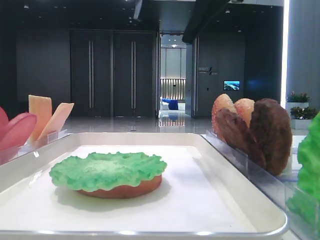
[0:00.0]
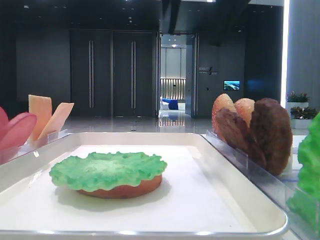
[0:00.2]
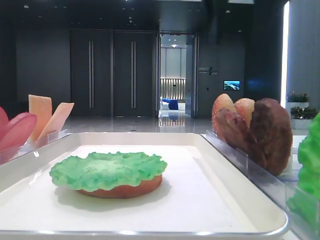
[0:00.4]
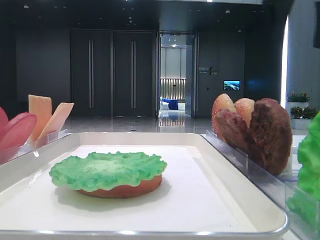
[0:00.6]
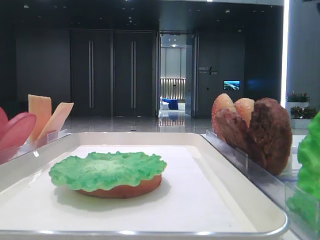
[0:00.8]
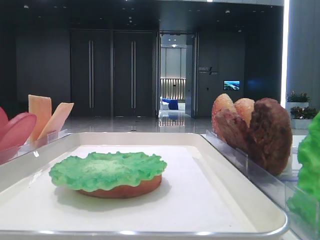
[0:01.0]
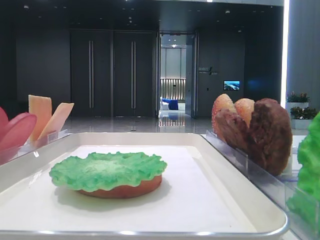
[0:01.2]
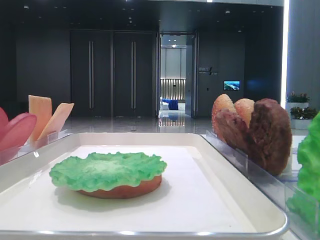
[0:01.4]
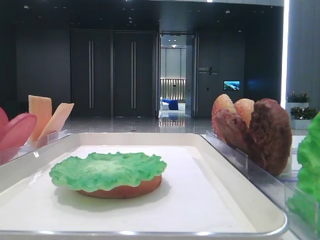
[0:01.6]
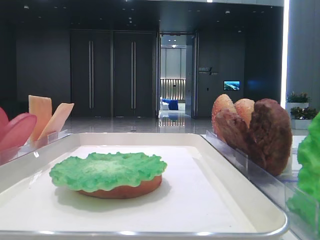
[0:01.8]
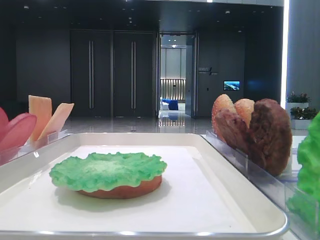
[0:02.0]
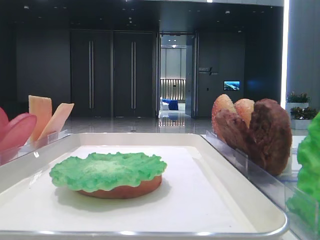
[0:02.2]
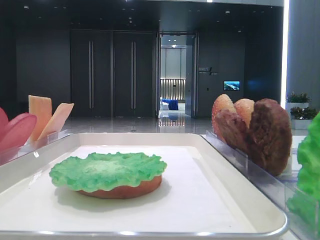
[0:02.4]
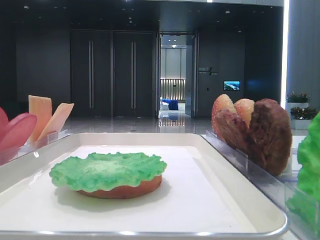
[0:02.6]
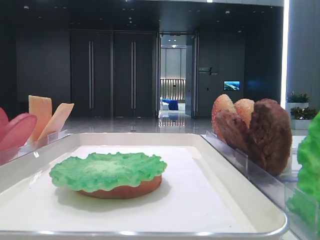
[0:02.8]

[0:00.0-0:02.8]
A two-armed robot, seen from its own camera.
0:00.0 to 0:01.4: The right gripper moves to the right and backward, roughly 30 cm.

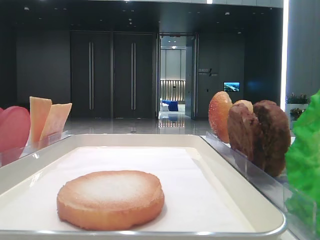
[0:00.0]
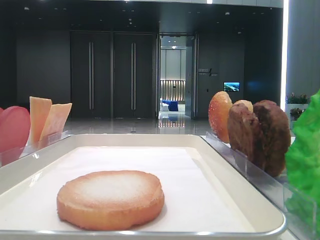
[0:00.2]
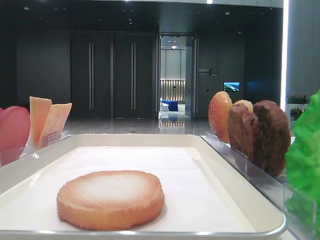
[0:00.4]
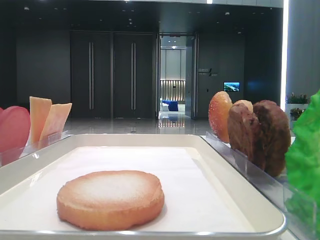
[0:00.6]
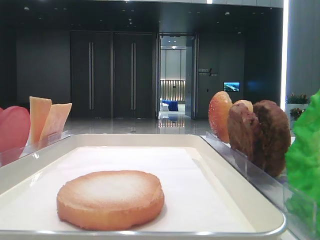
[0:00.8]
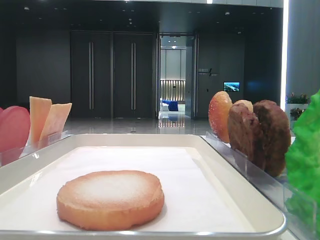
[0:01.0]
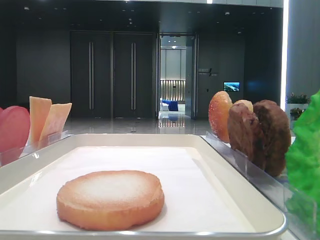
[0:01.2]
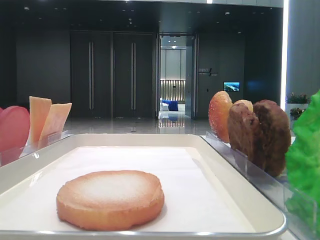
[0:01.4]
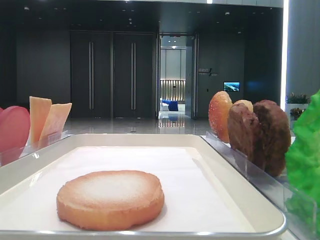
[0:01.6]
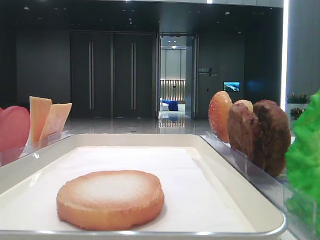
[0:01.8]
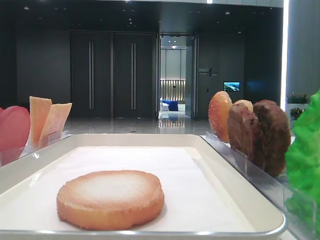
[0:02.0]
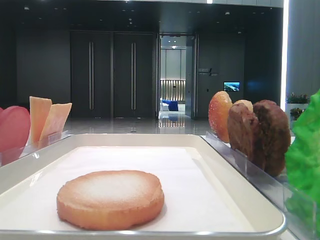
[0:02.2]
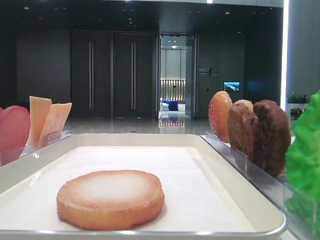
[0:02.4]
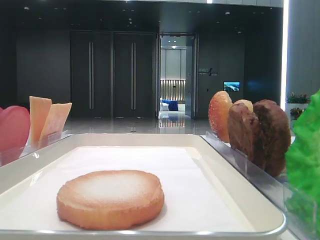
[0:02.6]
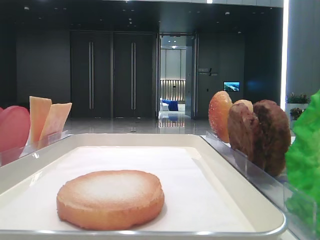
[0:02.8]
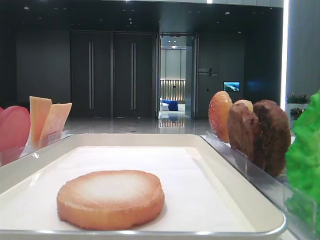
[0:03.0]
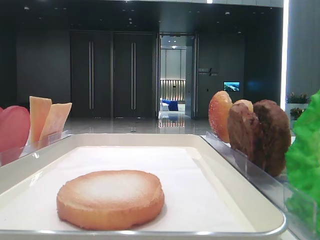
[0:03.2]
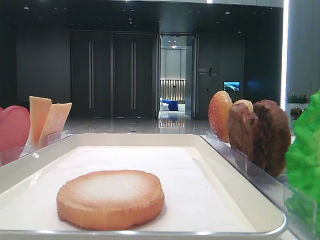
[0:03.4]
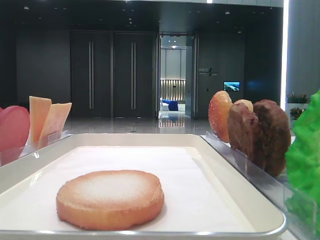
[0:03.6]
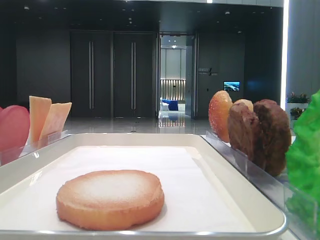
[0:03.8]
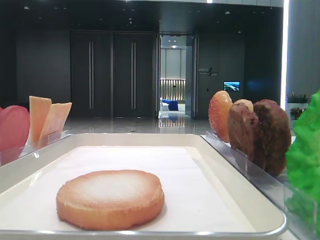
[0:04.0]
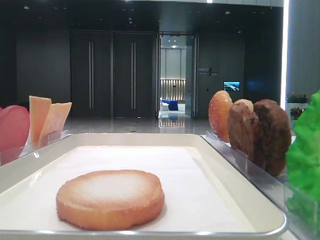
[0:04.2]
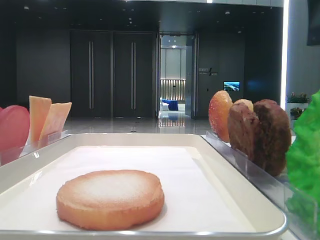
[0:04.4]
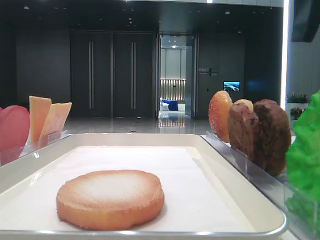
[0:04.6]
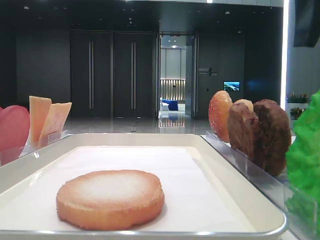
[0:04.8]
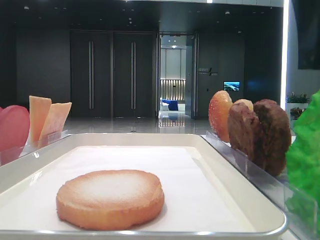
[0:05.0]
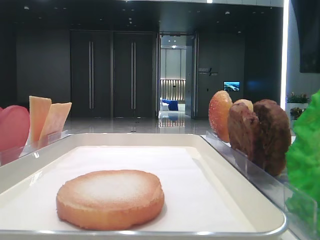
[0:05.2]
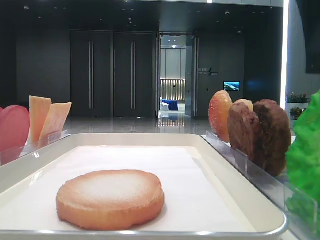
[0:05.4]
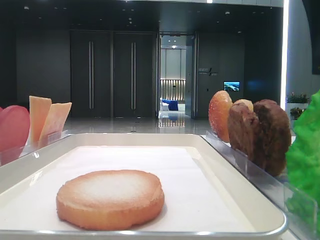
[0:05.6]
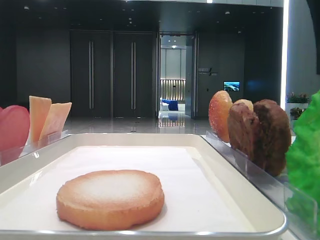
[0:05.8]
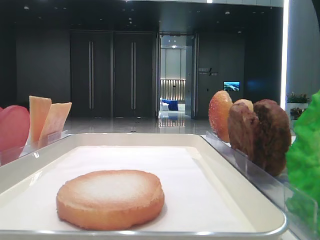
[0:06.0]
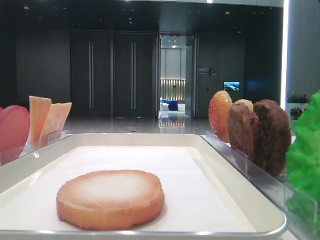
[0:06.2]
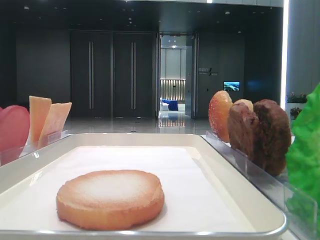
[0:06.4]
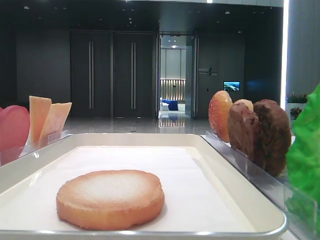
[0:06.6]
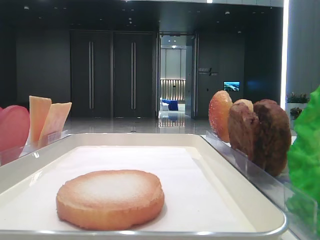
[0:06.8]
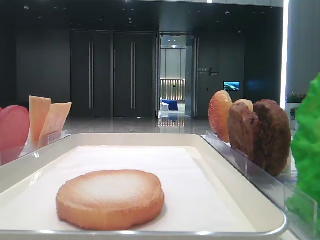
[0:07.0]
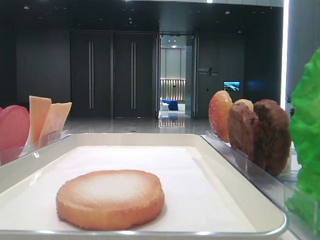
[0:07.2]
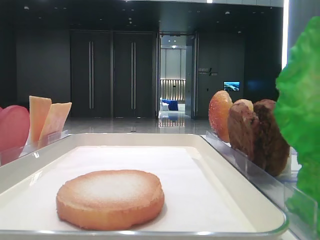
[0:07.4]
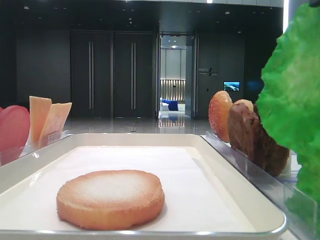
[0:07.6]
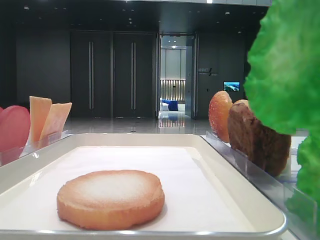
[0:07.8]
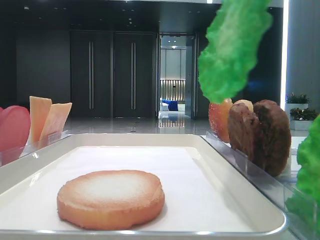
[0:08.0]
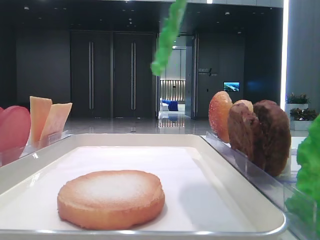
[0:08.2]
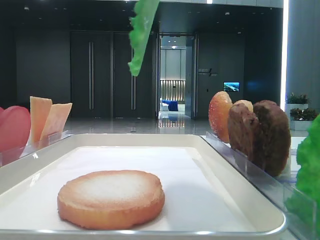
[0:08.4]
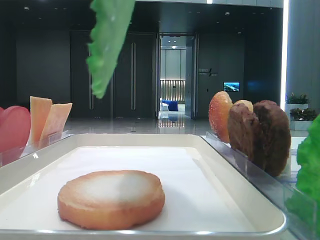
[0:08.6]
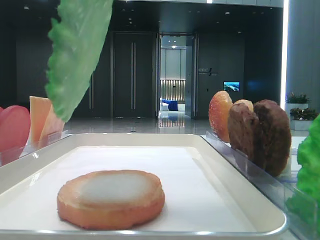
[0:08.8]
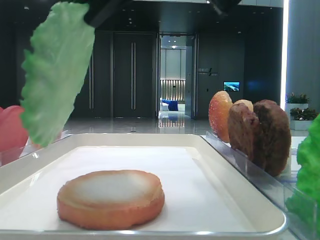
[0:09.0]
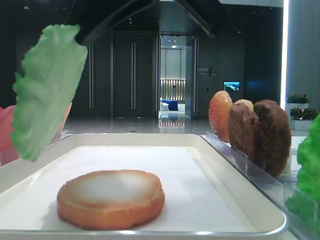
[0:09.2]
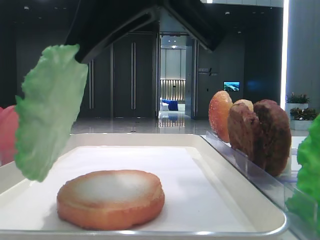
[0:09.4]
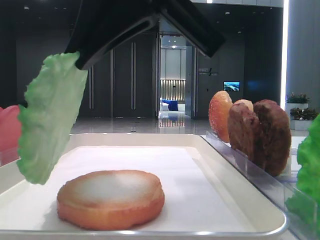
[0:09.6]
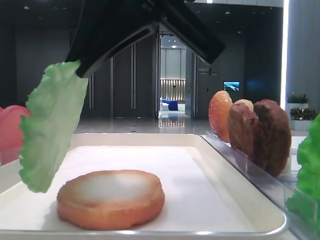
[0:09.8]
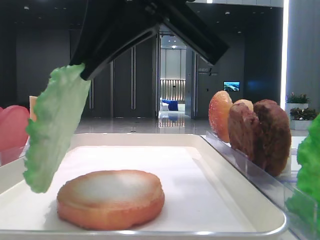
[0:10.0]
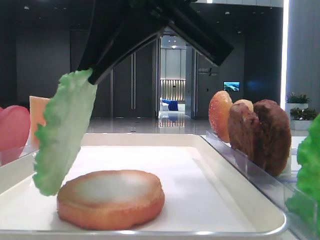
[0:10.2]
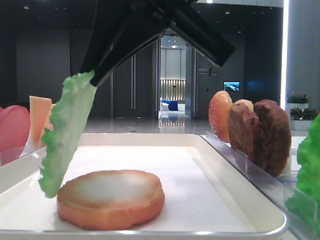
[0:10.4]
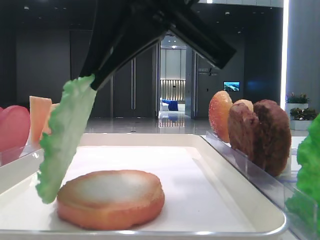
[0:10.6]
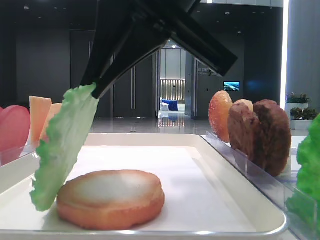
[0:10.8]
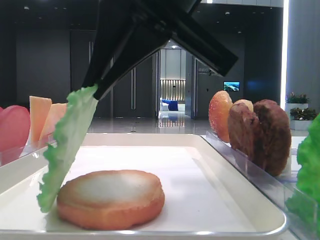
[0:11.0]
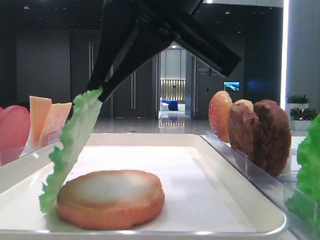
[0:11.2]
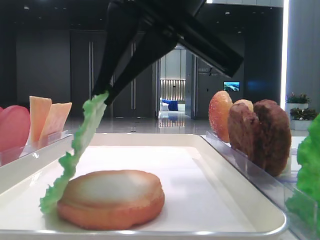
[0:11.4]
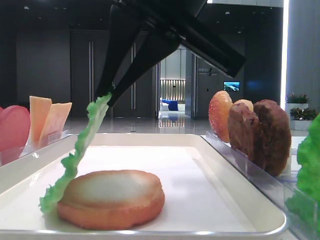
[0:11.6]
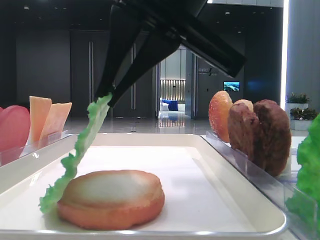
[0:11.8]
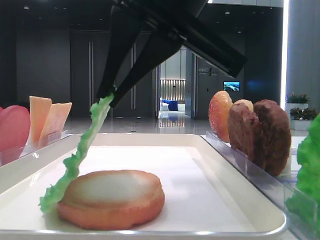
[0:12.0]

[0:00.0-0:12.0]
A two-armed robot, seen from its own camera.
Step, 0:00.0 to 0:06.6: Grab the lettuce leaf with the right hand.
0:03.0 to 0:04.4: The right gripper moves to the left and downward, approximately 10 cm.
0:06.0 to 0:07.6: The right gripper heads upward, covering some 5 cm, and closes up.
0:07.6 to 0:09.0: The right gripper goes some 10 cm to the left.
0:09.0 to 0:12.0: The grippers move only a little.

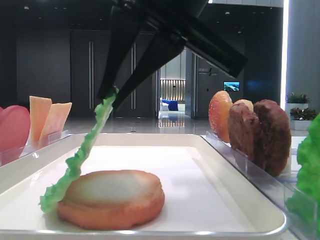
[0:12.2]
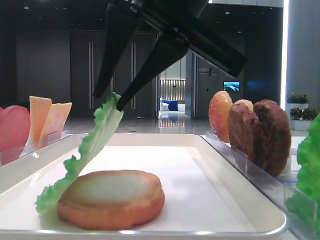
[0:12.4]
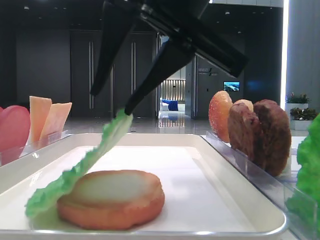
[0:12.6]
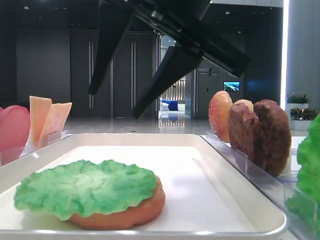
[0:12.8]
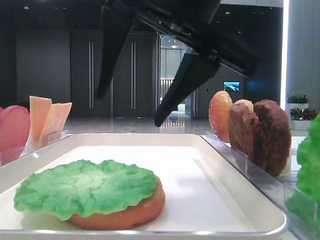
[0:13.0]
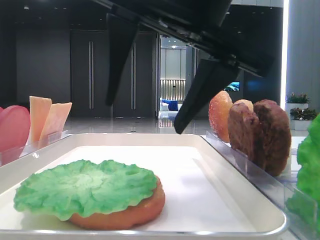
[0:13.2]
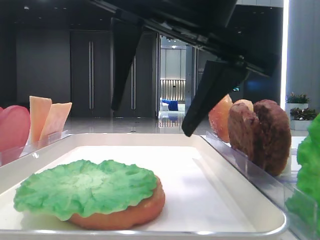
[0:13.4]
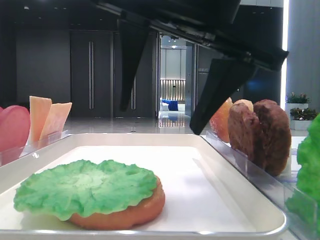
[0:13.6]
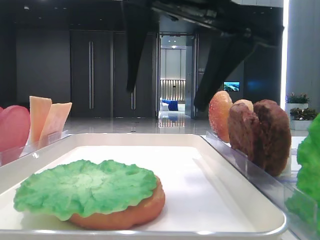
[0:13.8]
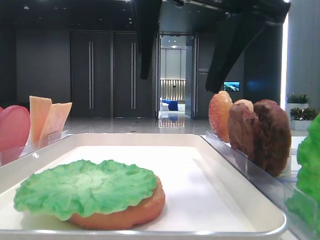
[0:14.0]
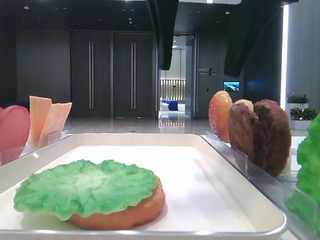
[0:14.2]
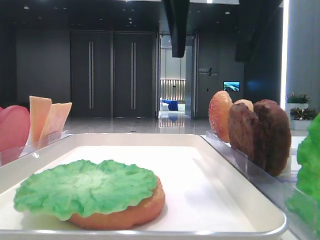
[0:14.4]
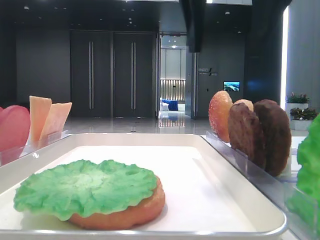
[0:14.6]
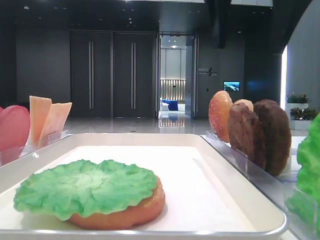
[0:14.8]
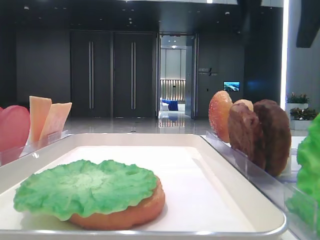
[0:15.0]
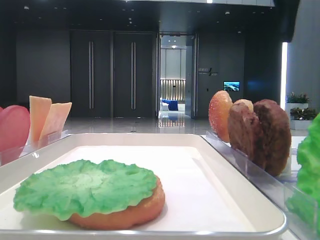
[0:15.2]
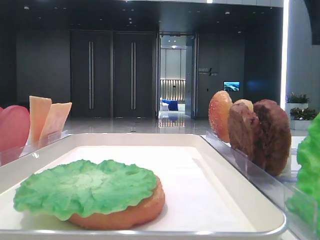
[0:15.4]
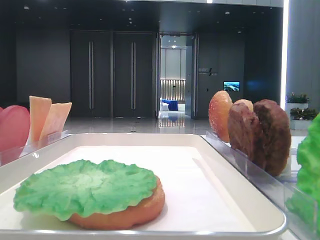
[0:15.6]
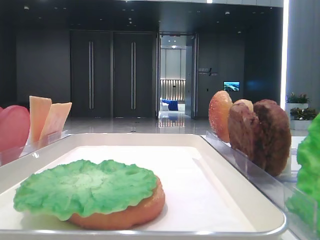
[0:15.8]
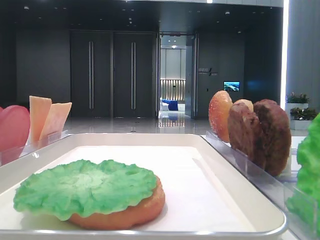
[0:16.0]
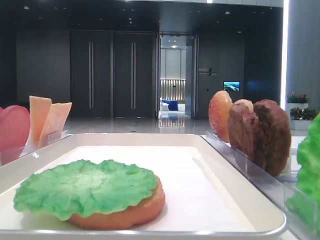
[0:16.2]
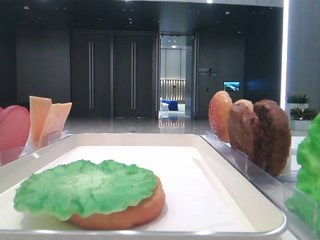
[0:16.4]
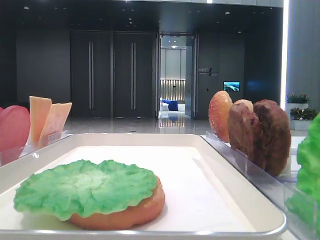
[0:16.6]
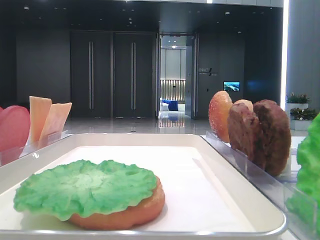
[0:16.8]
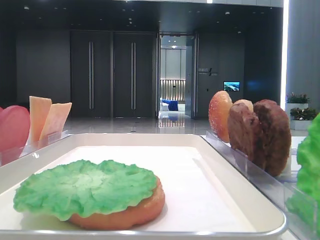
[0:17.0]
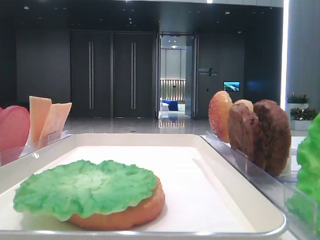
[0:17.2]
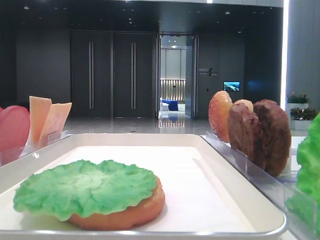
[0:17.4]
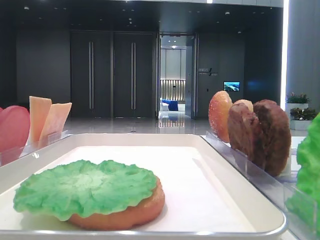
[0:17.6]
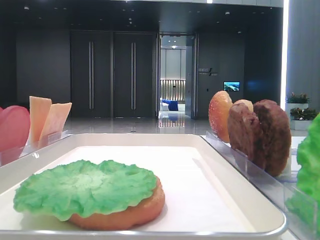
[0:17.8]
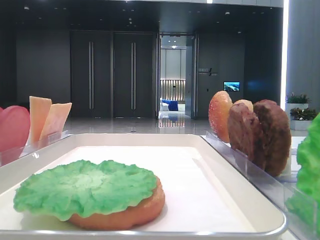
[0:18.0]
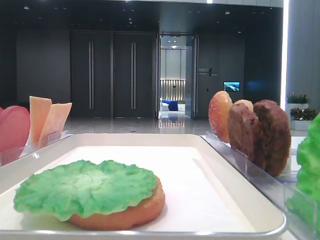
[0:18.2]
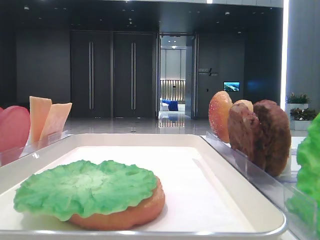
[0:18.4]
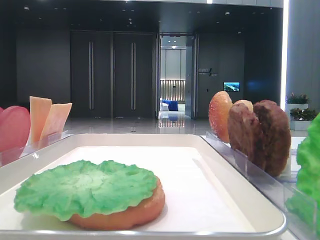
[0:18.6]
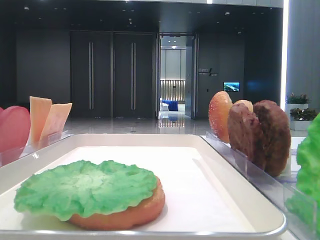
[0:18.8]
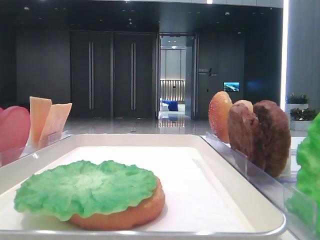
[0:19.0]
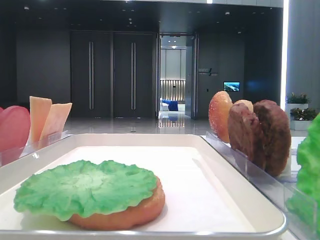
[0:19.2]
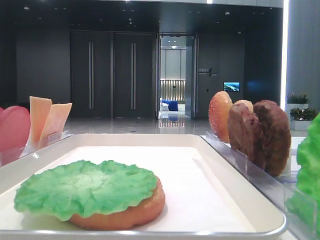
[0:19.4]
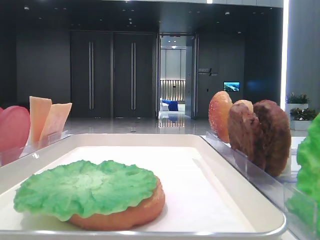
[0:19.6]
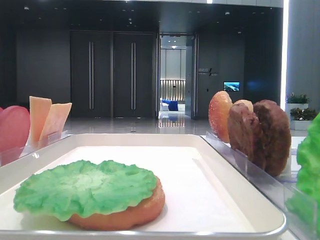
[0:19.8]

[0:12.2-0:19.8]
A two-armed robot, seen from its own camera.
0:12.2 to 0:13.8: The right gripper opens up.
0:13.8 to 0:15.2: The right gripper goes approximately 20 cm to the right, forward and upward.
0:15.2 to 0:16.8: The right gripper travels backward and to the right by about 15 cm.
